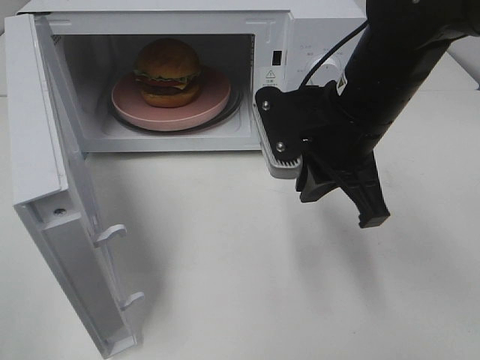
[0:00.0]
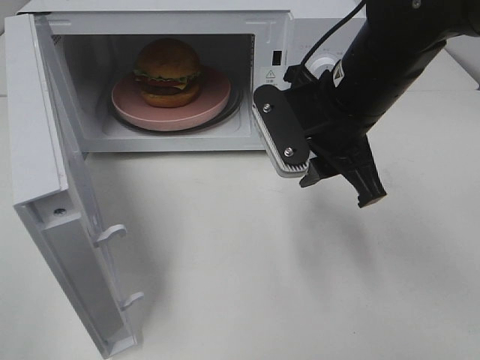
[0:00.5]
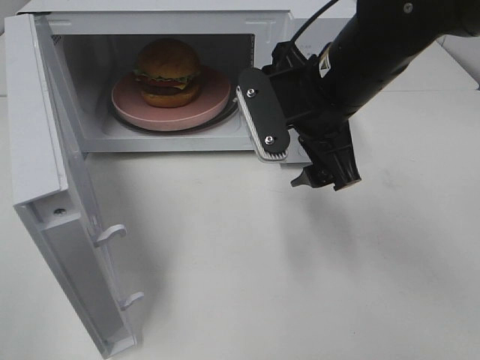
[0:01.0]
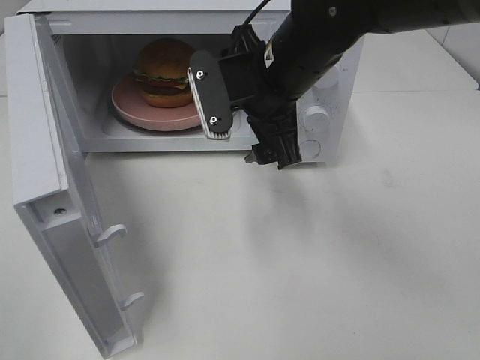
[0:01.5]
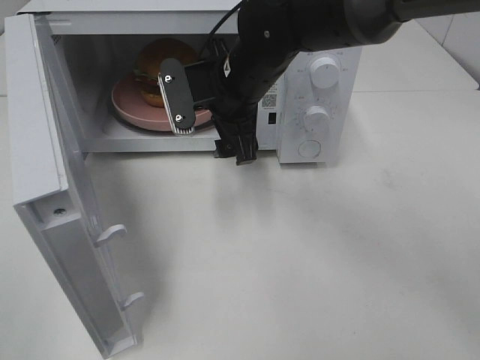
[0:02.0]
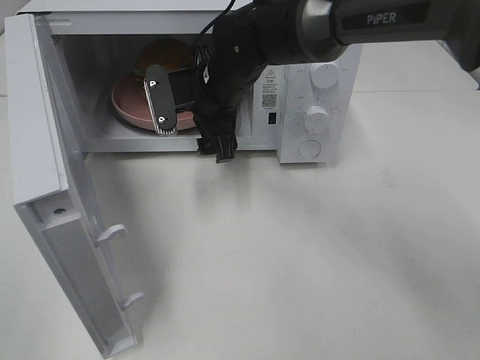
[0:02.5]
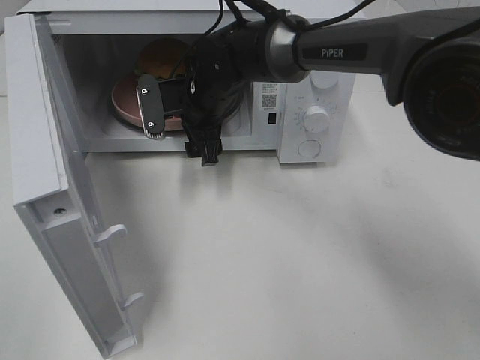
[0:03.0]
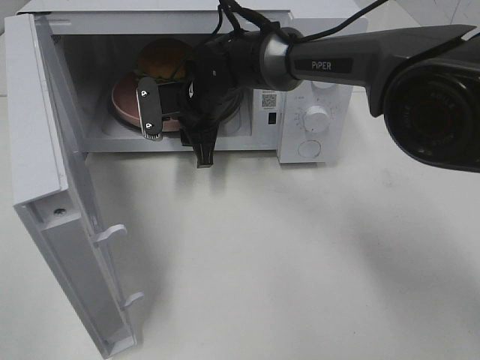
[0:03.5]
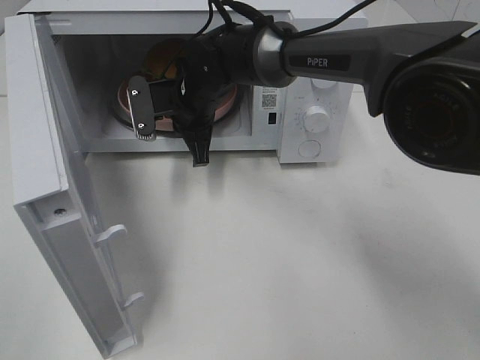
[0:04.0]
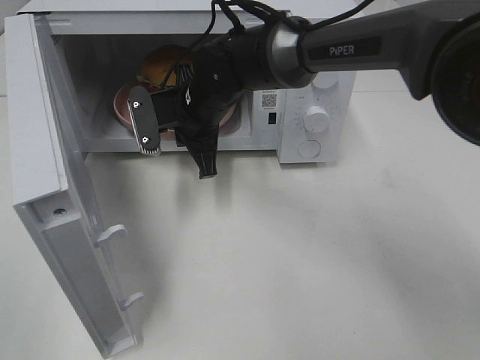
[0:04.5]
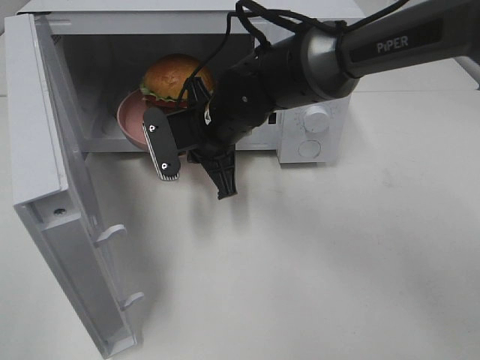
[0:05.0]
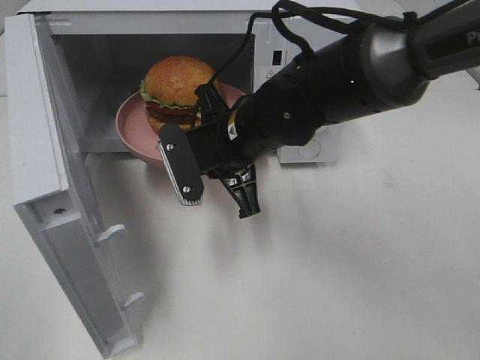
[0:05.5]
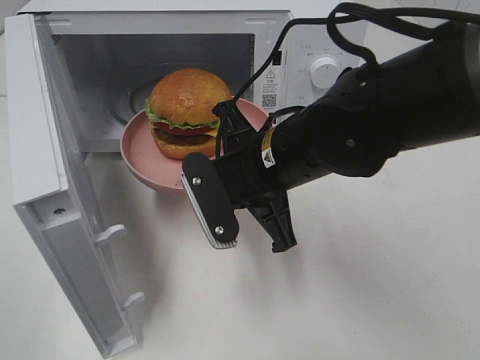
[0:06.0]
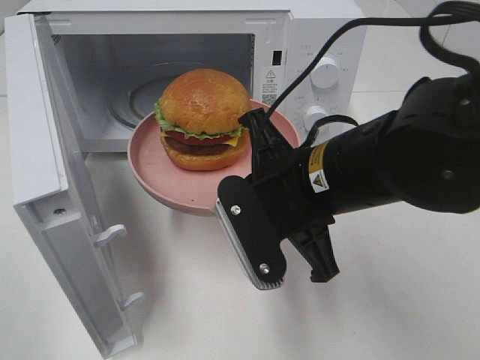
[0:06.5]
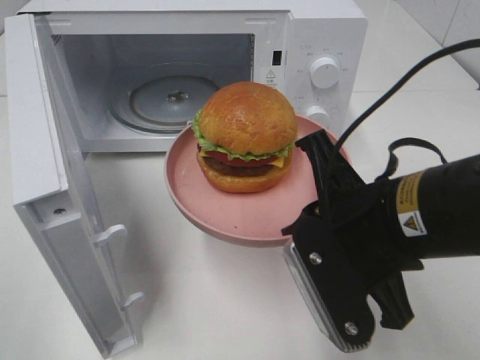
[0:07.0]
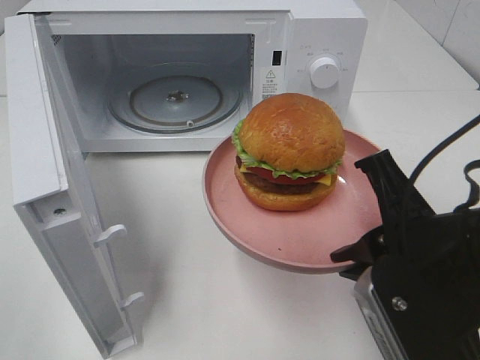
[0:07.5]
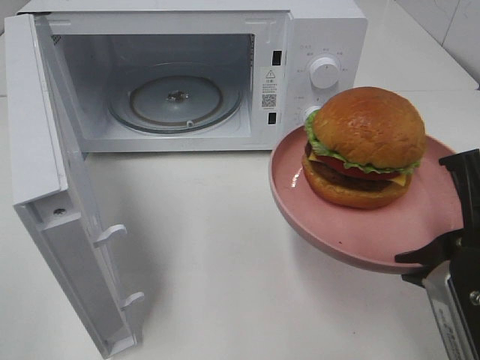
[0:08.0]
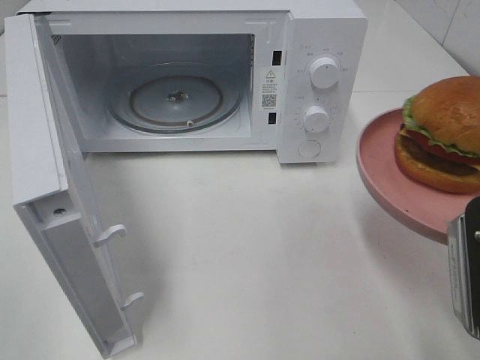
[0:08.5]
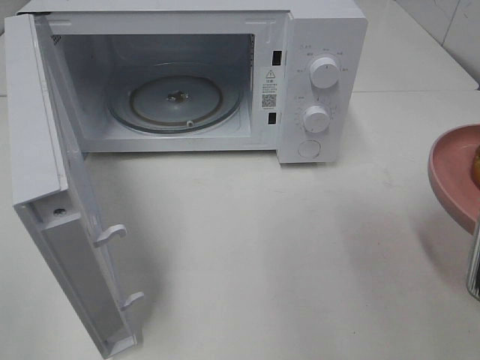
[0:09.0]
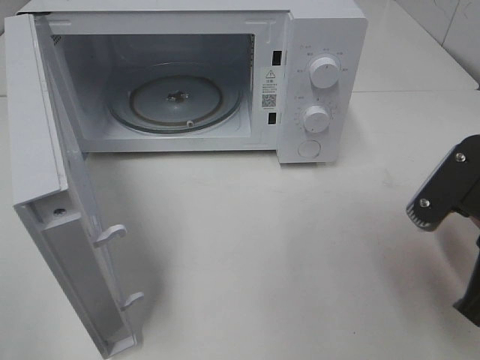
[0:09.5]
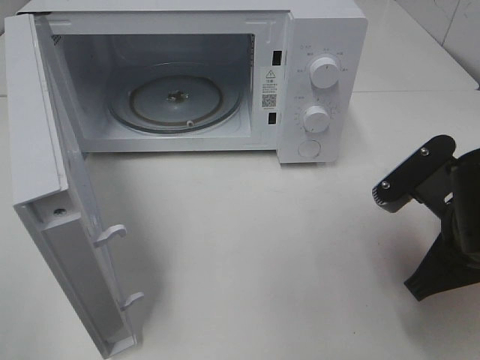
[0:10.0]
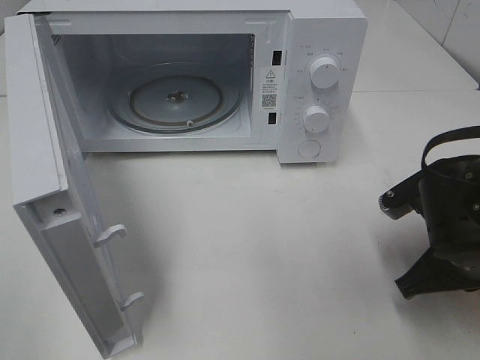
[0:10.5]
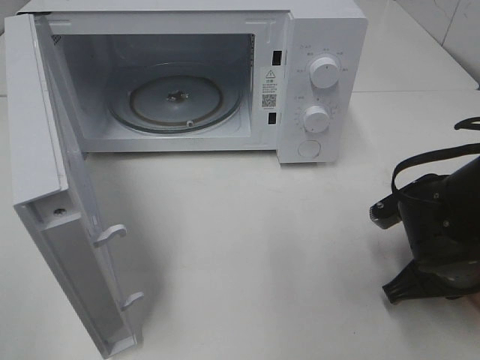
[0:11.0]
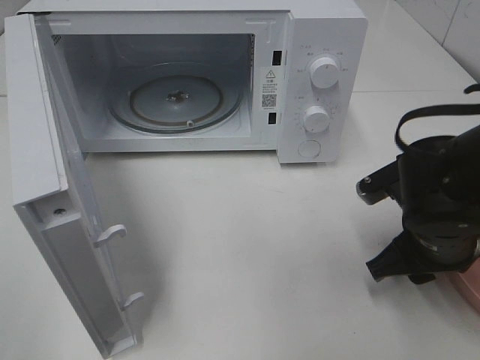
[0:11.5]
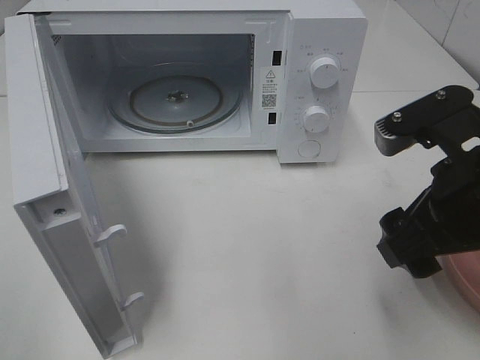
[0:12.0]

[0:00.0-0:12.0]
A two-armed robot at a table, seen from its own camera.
Task of the whole recording: Heat the burger.
Step, 0:00.0 to 0:03.5: Right hand: grab the plate with the hamburger.
Step, 0:04.0 to 0:11.0: Right hand: place the plate on the table.
0:00.0 to 0:02.0: The right gripper goes roughly 15 cm forward and to the left, and opens up.
0:02.0 to 0:04.0: The right gripper moves forward, downward and to the left, roughly 10 cm, and closes up.
0:04.0 to 0:06.0: The right gripper goes approximately 20 cm backward and to the right.
0:06.0 to 0:08.0: The right gripper shifts roughly 20 cm to the right and backward.
0:08.0 to 0:10.0: The right gripper moves forward and downward, about 10 cm.
0:10.0 to 0:12.0: The right gripper is displaced upward by roughly 5 cm, and opens.

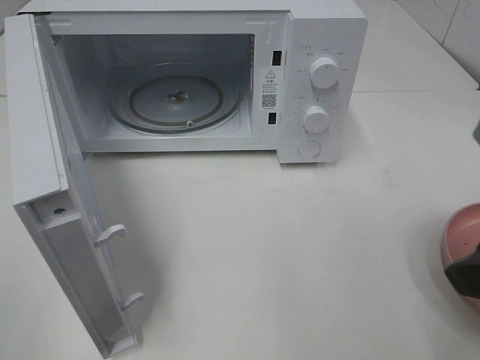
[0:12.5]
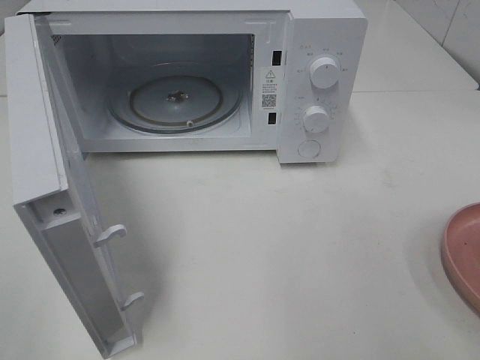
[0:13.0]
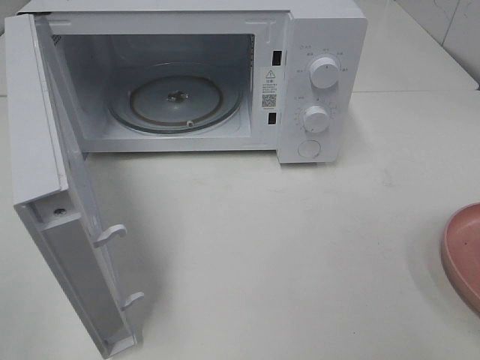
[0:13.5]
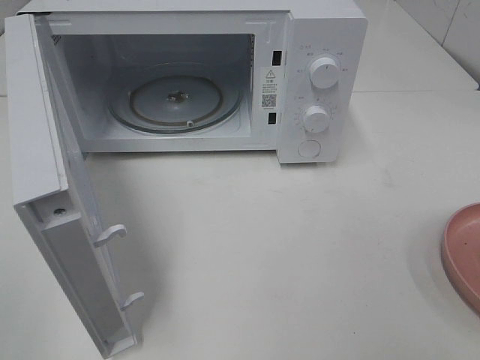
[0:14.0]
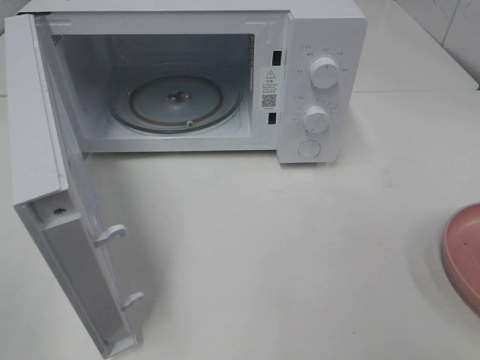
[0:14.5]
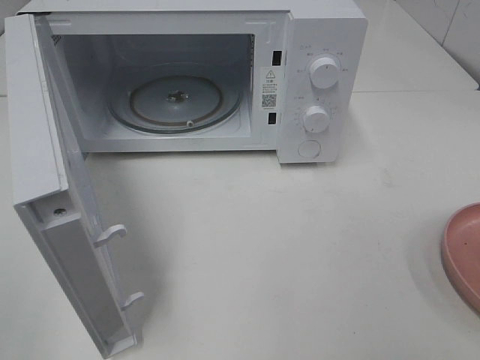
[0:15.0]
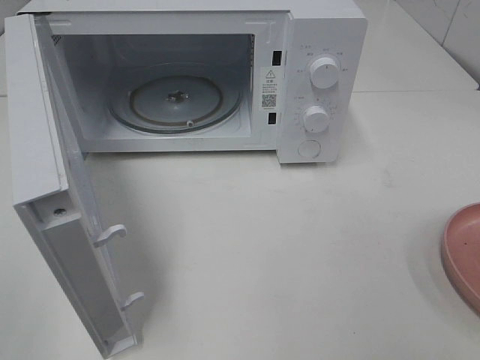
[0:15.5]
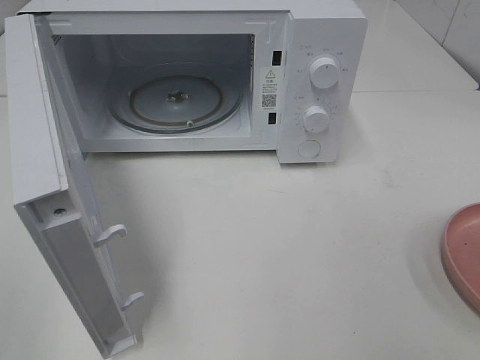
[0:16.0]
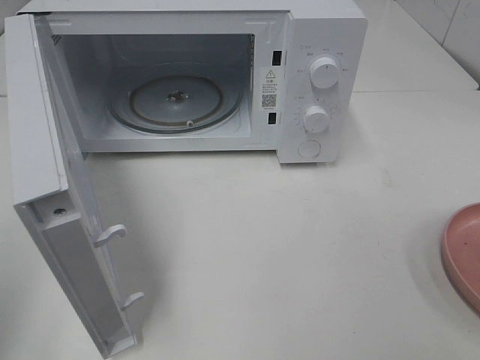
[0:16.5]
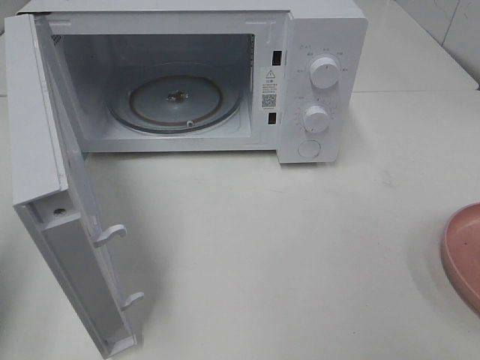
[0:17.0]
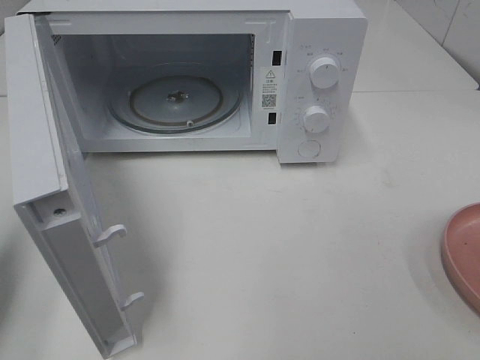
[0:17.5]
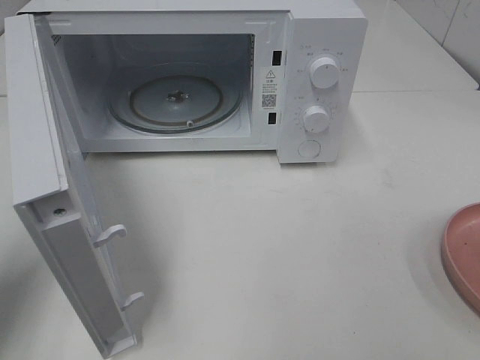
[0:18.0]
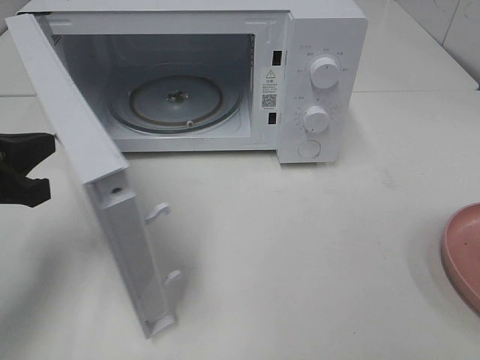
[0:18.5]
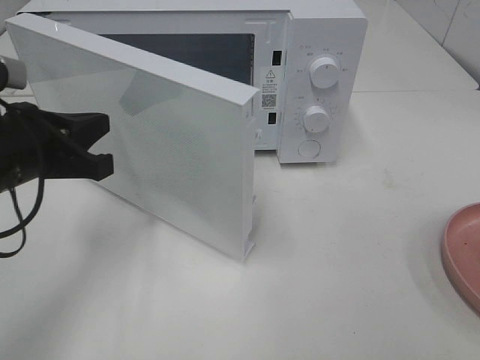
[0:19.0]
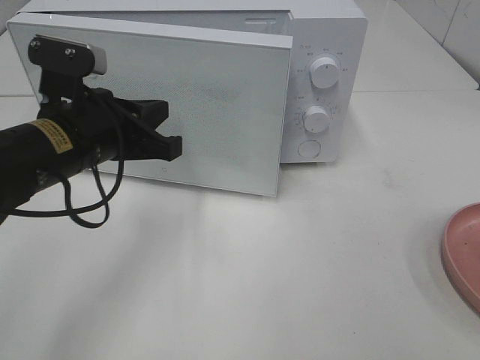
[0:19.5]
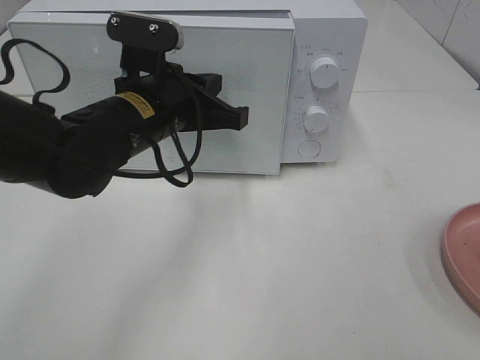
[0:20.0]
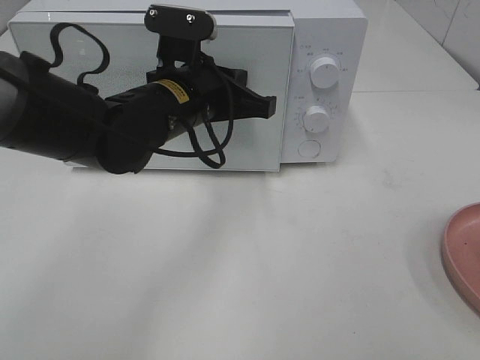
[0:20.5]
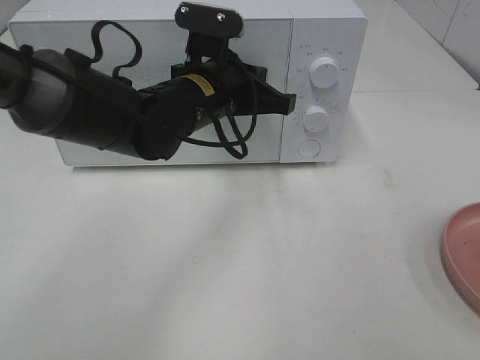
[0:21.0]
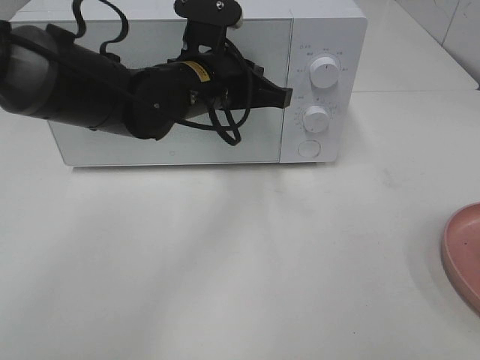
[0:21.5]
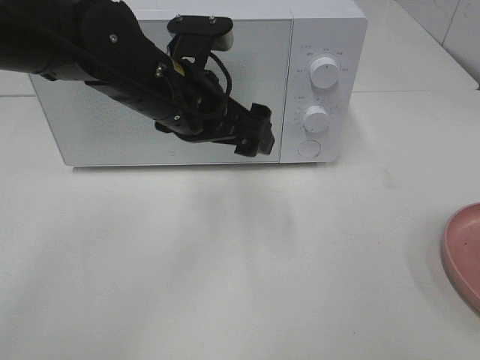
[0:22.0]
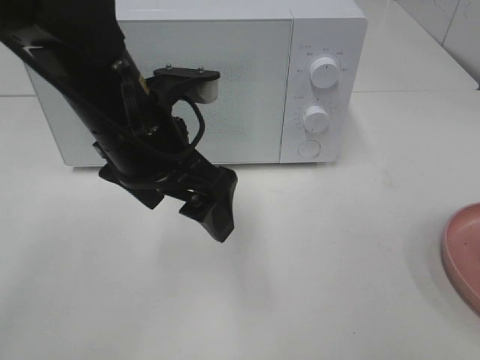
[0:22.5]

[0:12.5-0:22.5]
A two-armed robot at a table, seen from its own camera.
Task of the whole recording: Heat the burger.
Step, 0:12.5 to 0:21.5: Left hand: close the microwave door.
0:12.5 to 0:14.5: The right gripper heads backward and to the right, covering roughly 15 cm.
0:16.5 to 0:18.5: The left gripper travels forward, downward and to the right by some 20 cm.
0:18.5 to 0:20.5: The left gripper is displaced to the right and forward by roughly 25 cm.
0:20.5 to 0:22.5: The left gripper is displaced backward by about 5 cm, and opens up.

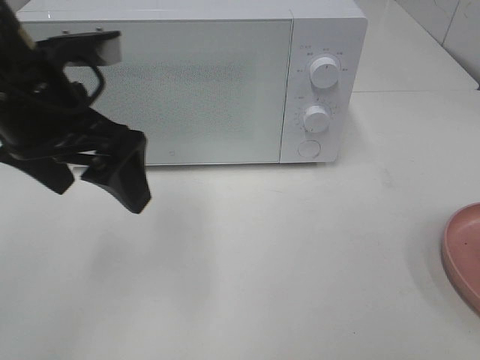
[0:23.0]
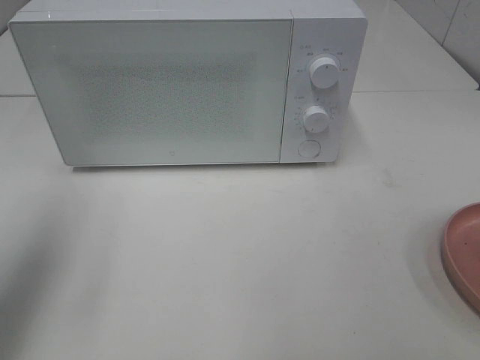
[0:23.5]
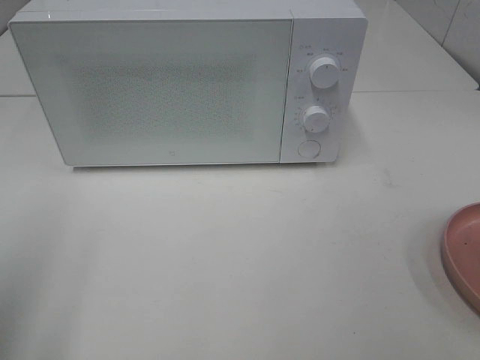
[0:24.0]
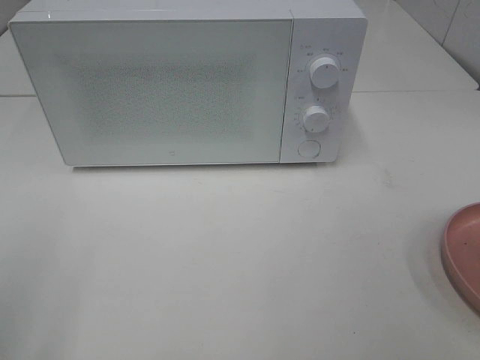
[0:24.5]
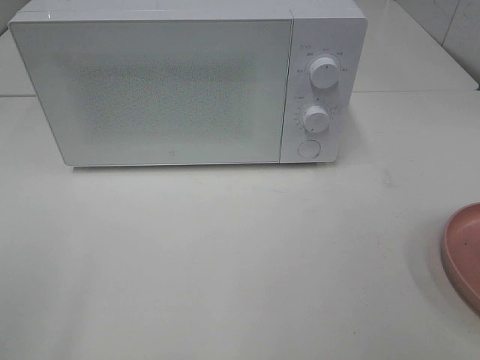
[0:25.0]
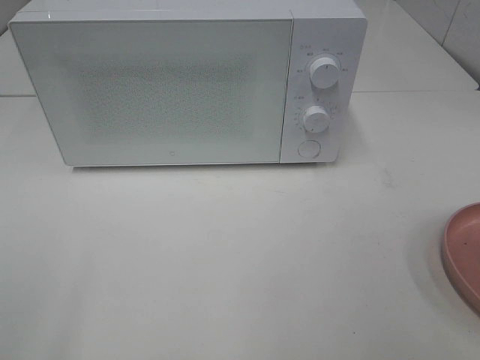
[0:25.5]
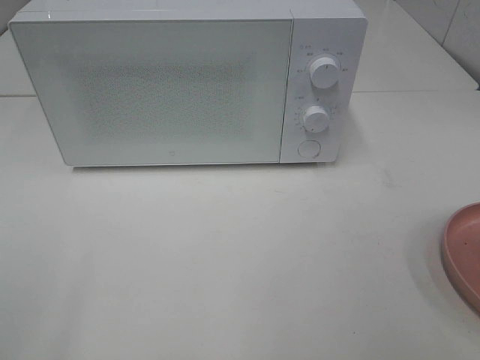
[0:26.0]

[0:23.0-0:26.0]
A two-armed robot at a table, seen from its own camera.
Task of the whole recording: Heat the burger.
0:23.0 to 0:24.5: The left gripper heads backward and to the left, covering some 25 cm.
